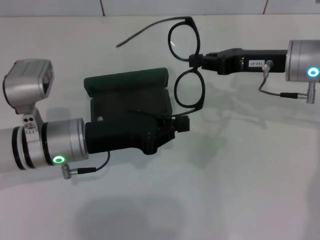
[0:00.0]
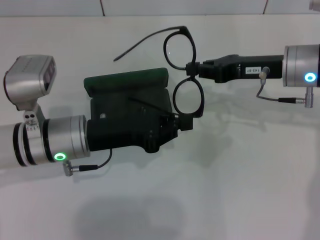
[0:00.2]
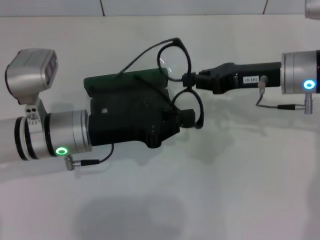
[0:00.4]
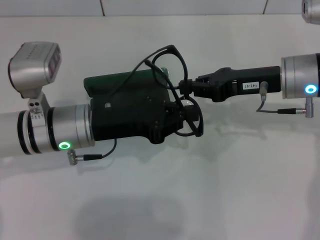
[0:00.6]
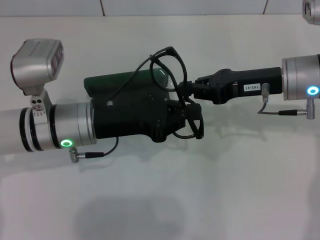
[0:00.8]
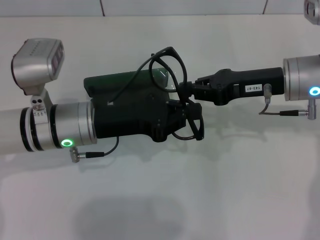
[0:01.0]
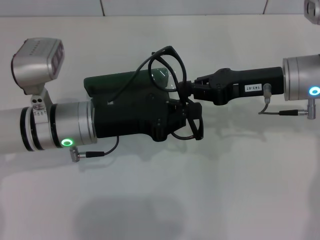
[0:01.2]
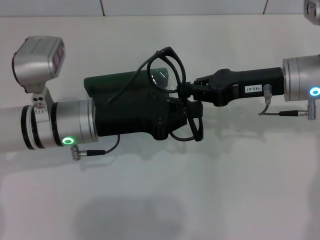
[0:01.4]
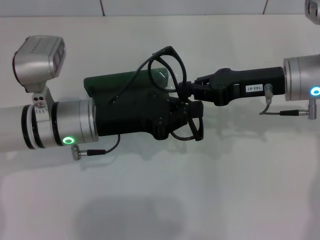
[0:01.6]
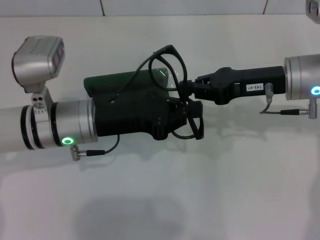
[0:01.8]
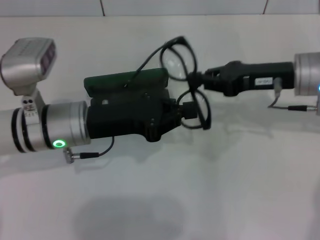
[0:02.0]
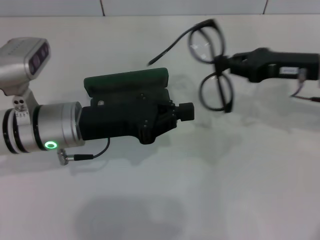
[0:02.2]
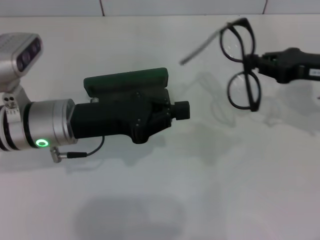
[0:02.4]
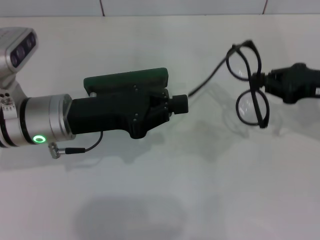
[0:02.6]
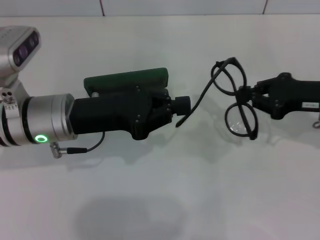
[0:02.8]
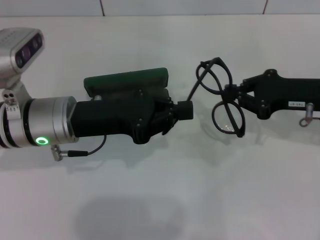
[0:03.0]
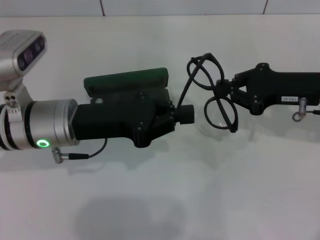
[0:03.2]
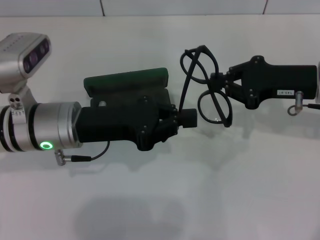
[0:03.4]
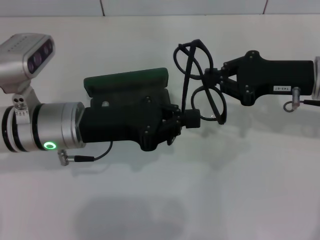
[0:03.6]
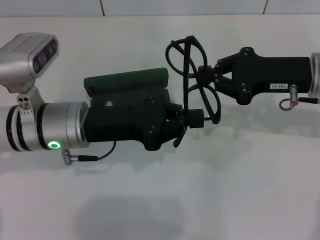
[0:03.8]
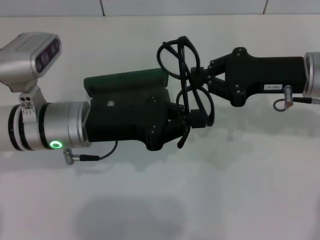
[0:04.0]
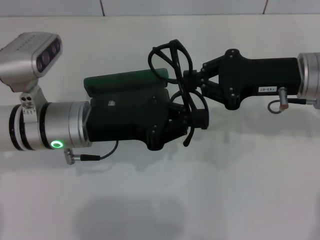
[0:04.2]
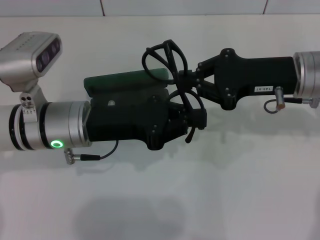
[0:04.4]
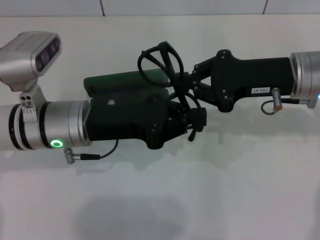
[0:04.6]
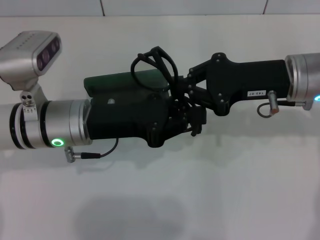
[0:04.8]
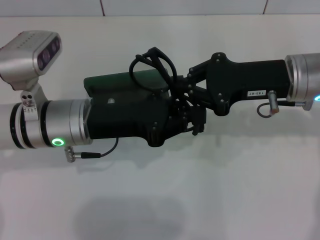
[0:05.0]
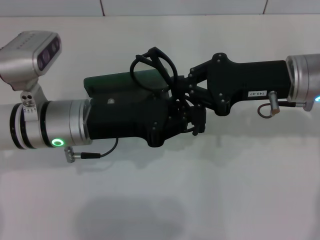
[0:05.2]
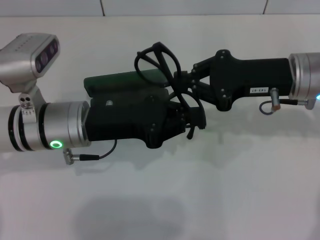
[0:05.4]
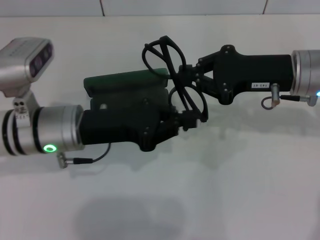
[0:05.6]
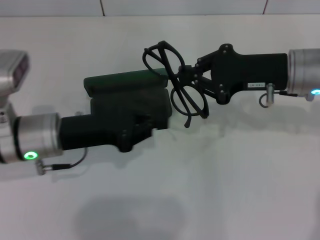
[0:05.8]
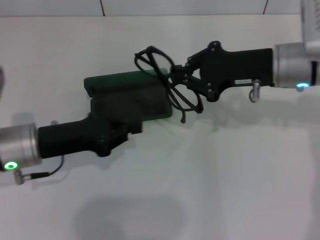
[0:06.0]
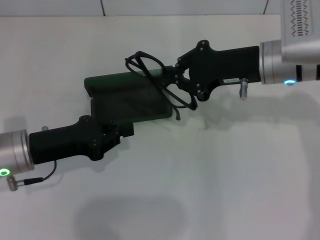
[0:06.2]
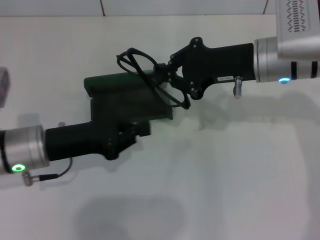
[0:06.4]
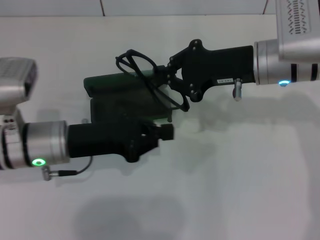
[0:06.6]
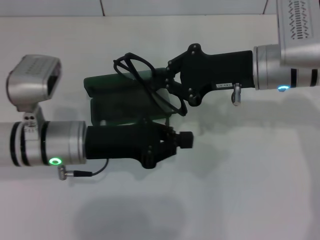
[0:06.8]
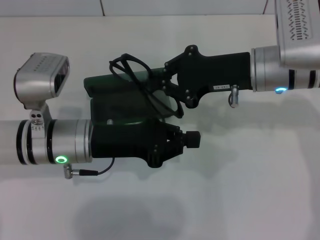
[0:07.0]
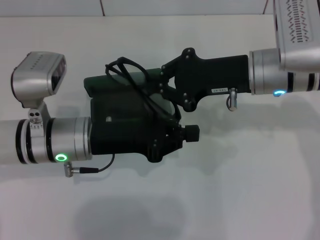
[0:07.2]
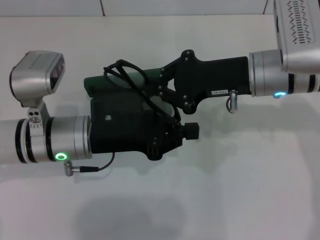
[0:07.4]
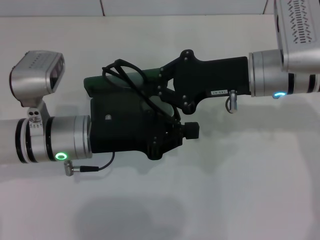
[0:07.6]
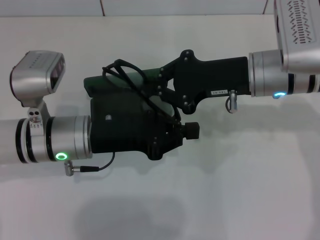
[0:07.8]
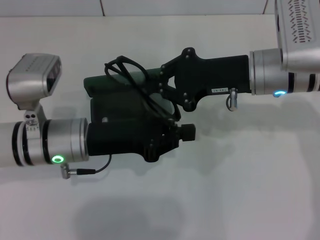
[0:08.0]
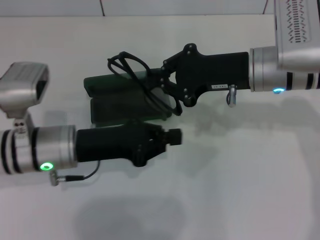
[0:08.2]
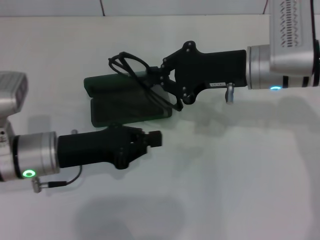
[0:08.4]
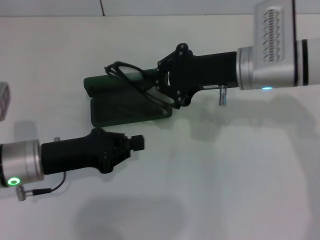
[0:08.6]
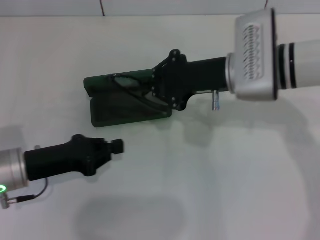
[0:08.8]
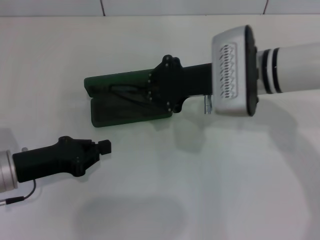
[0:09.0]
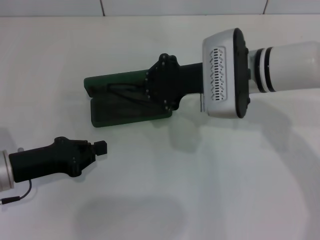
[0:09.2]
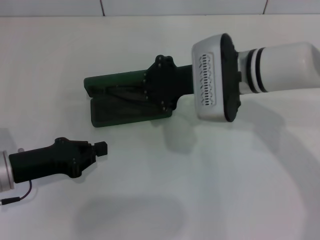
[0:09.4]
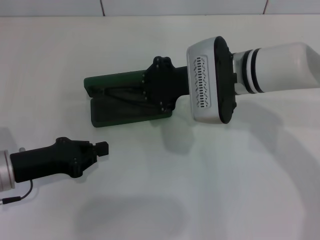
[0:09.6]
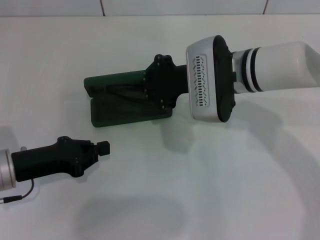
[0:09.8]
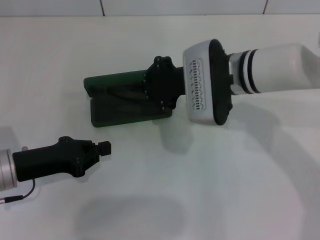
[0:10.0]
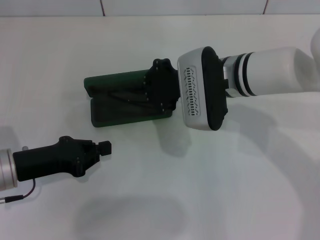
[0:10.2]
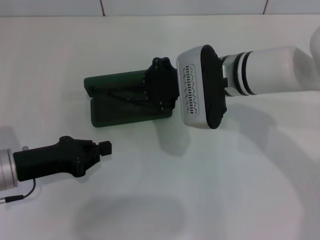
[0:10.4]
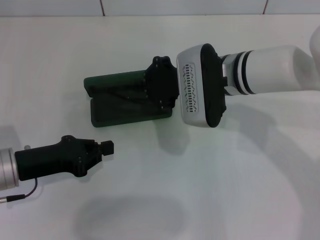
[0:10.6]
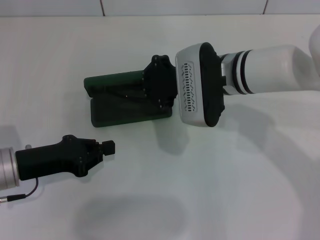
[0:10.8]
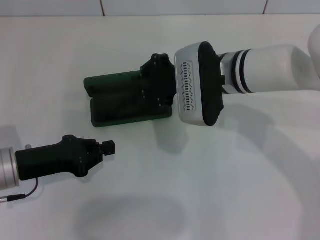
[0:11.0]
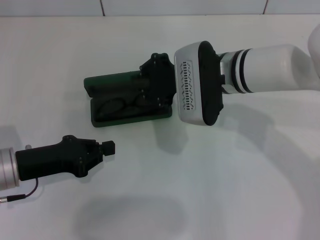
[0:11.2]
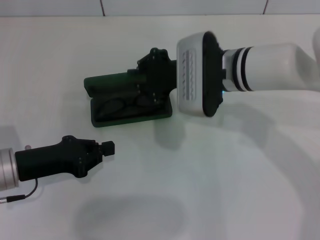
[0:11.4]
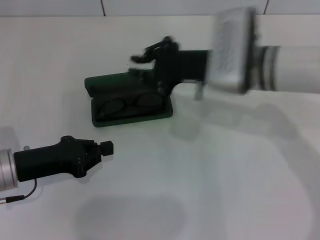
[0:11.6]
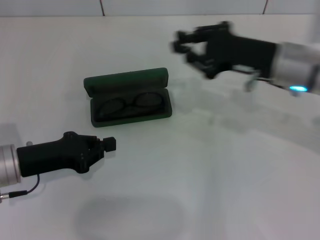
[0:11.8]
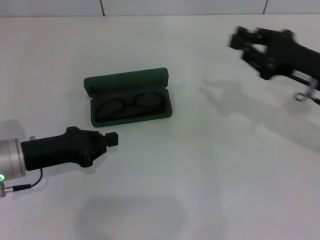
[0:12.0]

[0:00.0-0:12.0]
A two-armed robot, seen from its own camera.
Step, 0:00.0 to 0:05.4: Fold the frame with your left hand.
Step, 0:05.6 to 0:11.0: Put the glasses into the case with your right hand.
0:01.6 to 0:03.0: The right gripper goes about 5 cm to the right.
0:03.0 to 0:04.4: The right gripper travels to the left by approximately 5 cm.
0:04.4 to 0:06.0: The left gripper is displaced to the left by some 5 cm.
0:06.0 to 0:07.6: The left gripper moves to the right, approximately 5 cm.
0:07.6 to 0:09.0: The left gripper is displaced to the left by roughly 10 cm.
0:09.0 to 0:10.4: The grippers stay close to where they were, moving slightly.
0:10.4 to 0:12.0: The right gripper is displaced to the right by roughly 20 cm.

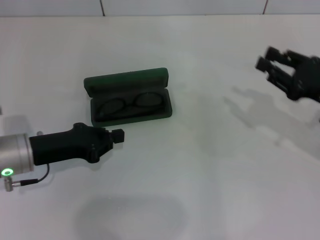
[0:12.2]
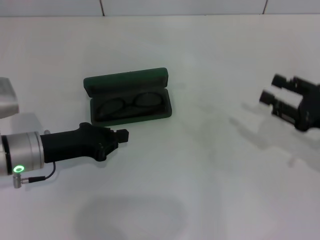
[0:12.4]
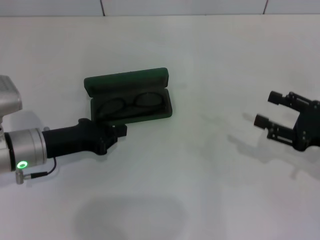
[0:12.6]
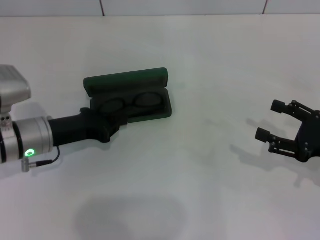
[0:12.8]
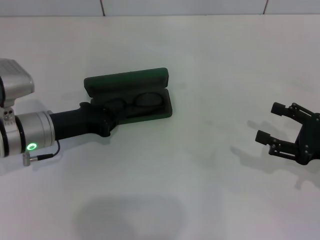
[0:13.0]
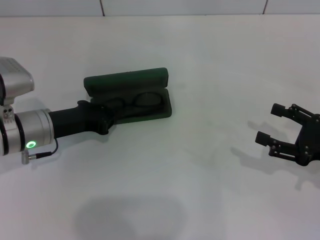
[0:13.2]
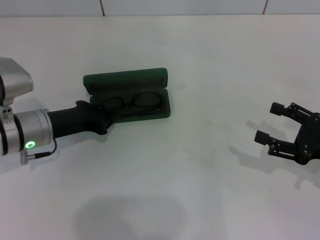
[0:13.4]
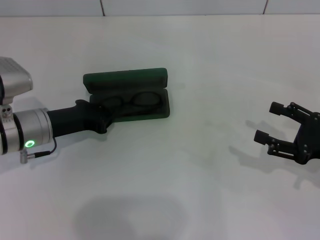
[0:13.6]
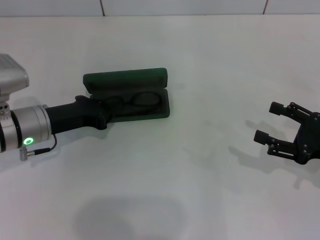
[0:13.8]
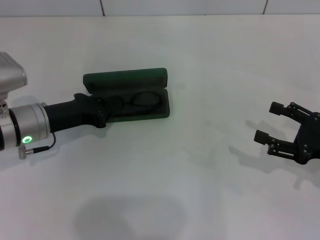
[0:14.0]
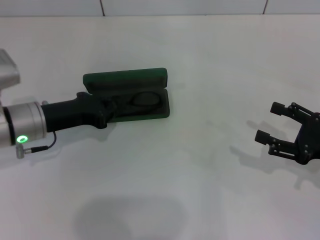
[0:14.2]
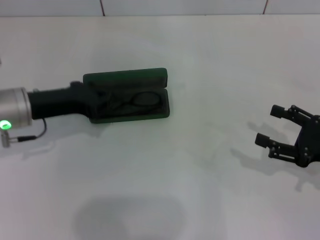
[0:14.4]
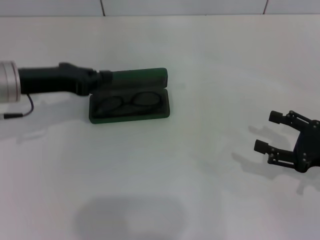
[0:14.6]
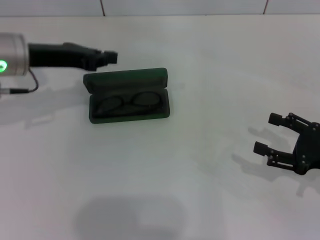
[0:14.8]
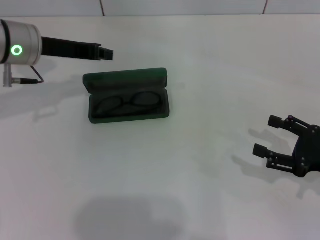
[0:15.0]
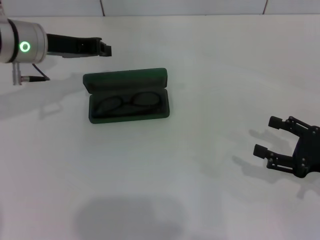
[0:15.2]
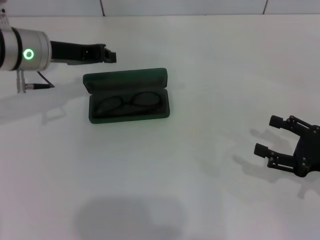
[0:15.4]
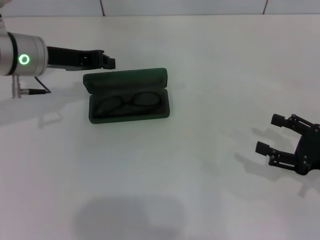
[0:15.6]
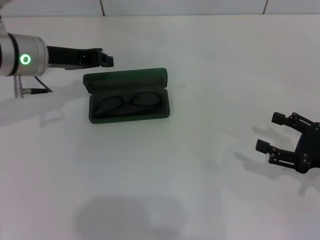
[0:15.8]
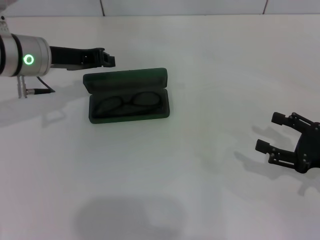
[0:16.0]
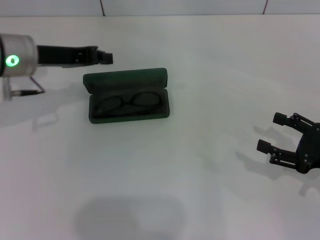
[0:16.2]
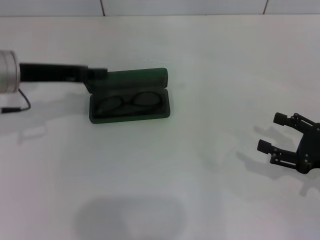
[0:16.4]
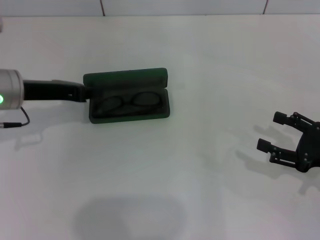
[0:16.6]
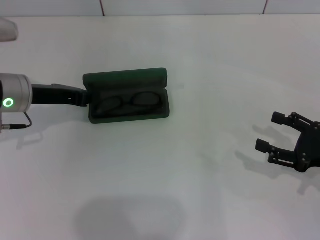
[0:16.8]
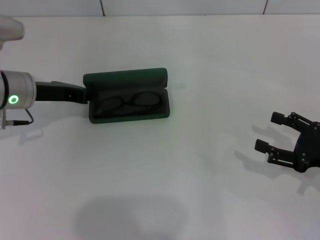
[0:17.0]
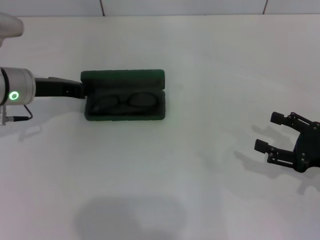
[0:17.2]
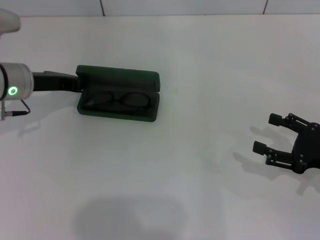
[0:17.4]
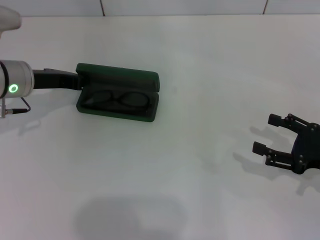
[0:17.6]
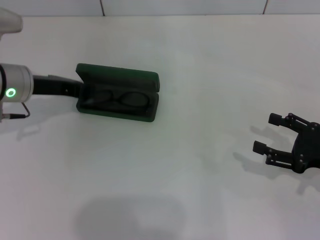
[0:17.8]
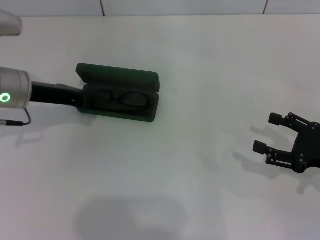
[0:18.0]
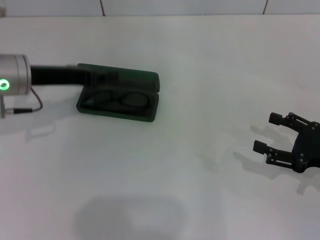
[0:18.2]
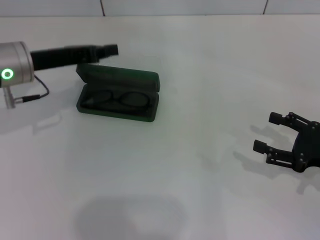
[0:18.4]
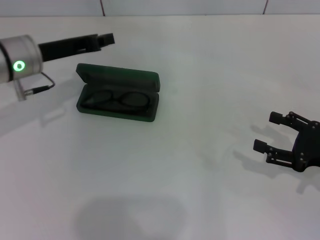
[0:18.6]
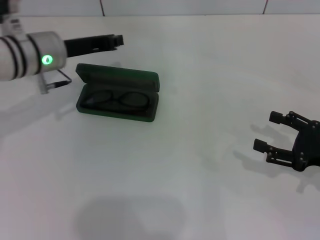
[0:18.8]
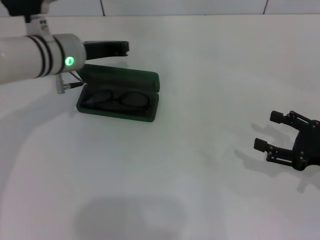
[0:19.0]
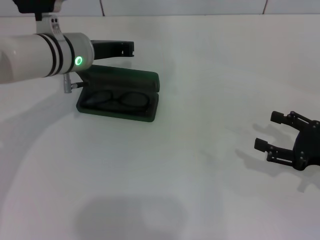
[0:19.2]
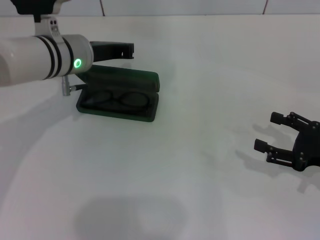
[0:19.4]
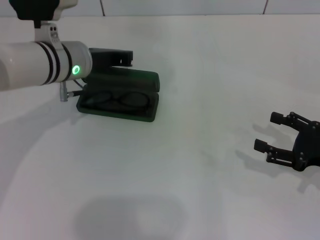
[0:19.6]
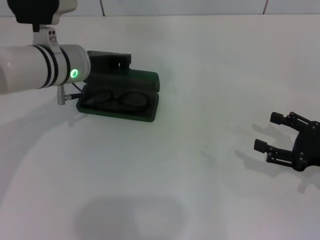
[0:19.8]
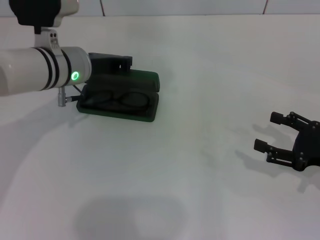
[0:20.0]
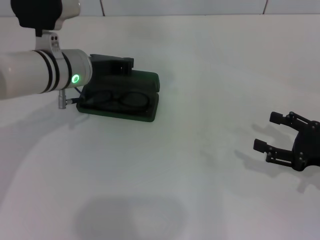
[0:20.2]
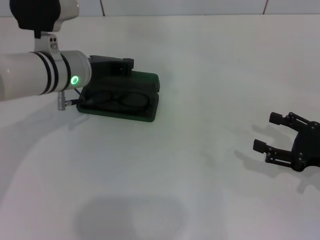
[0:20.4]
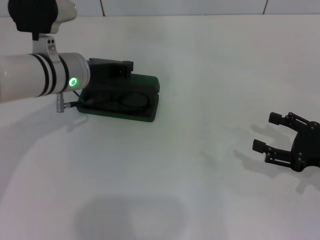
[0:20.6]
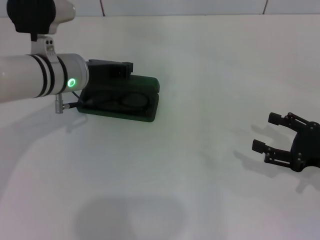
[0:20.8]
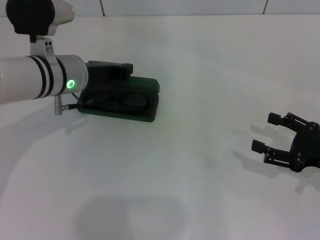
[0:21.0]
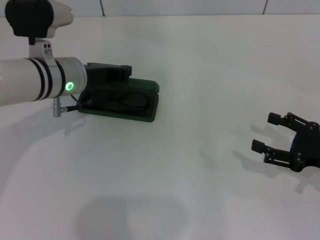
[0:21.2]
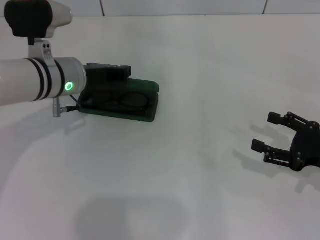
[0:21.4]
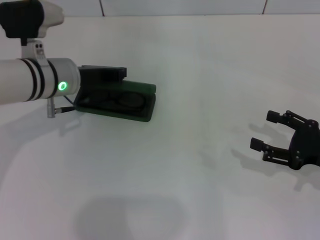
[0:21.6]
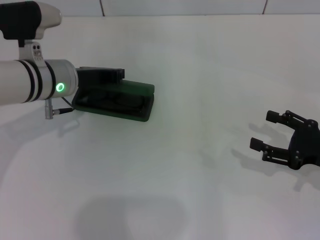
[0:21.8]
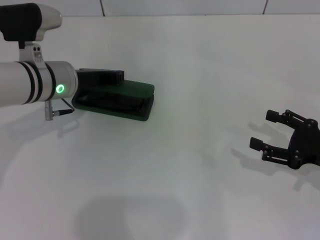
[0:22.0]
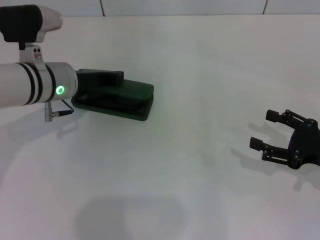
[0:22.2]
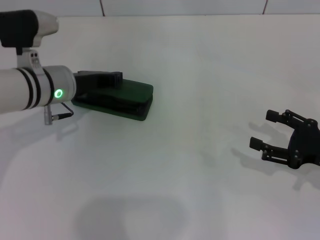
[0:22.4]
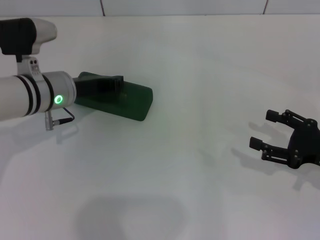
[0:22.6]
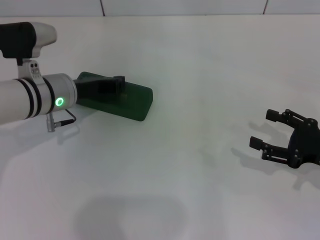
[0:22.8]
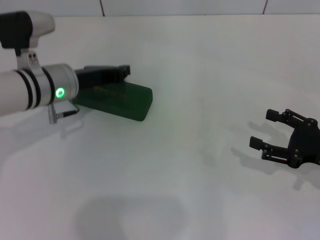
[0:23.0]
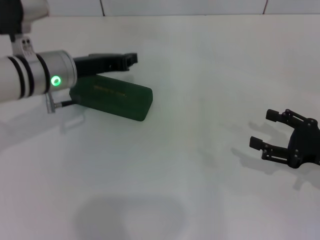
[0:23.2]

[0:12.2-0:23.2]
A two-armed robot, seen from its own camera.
Step, 0:12.2 to 0:22.8: Close the glasses case with your left hand.
0:12.2 to 0:13.8: The right gripper moves backward, about 5 cm, and opens its fingers.
0:13.8 to 0:15.4: The left gripper goes approximately 10 cm upward and forward.
0:15.4 to 0:17.0: The left gripper ends up approximately 5 cm from where it was.
0:18.4 to 0:20.0: The left gripper is displaced to the right by approximately 10 cm.
0:20.0 to 0:23.2: The grippers move only a little.
